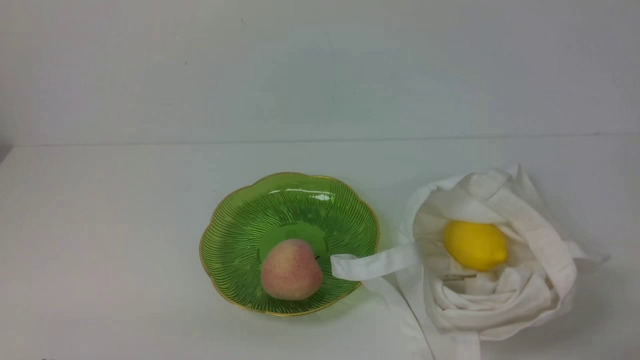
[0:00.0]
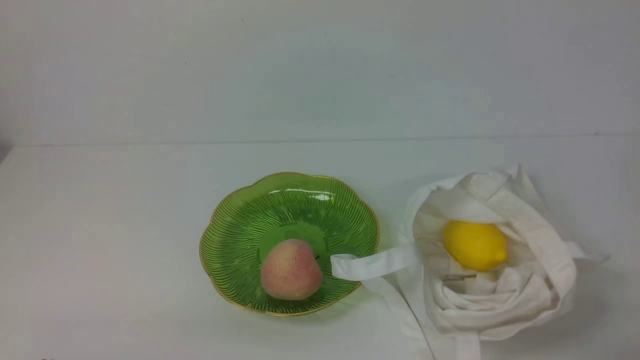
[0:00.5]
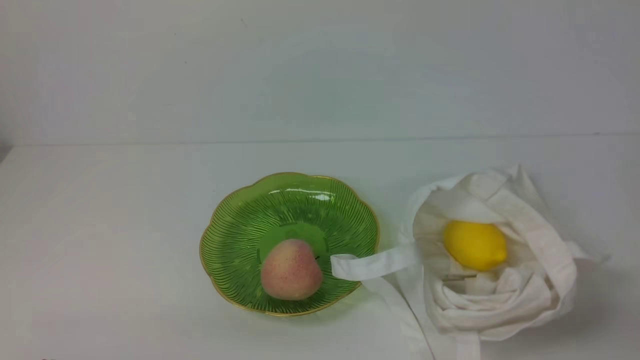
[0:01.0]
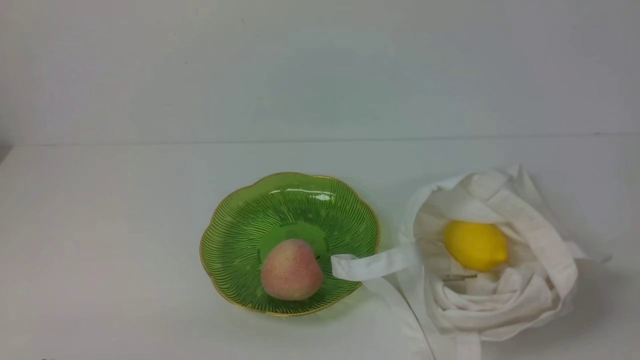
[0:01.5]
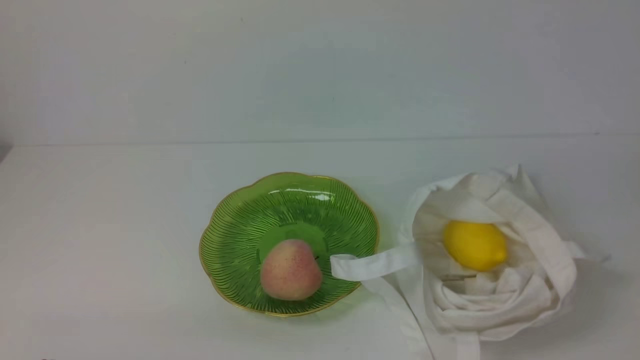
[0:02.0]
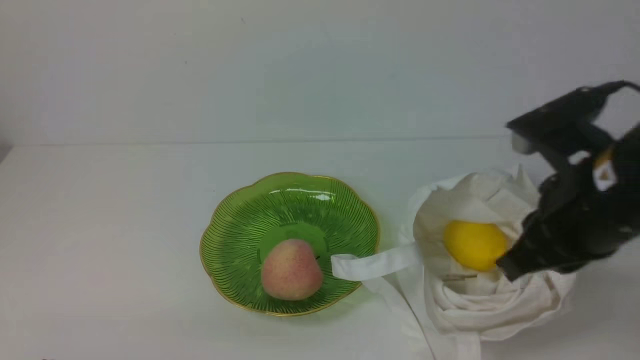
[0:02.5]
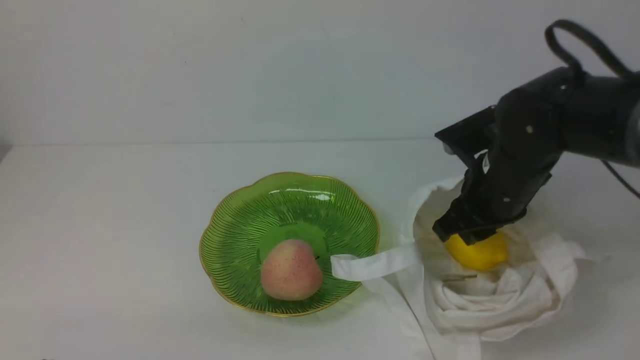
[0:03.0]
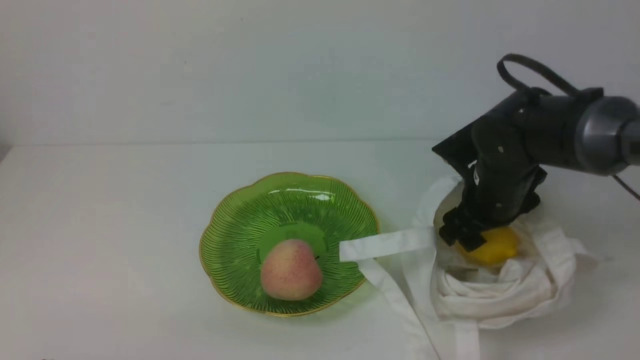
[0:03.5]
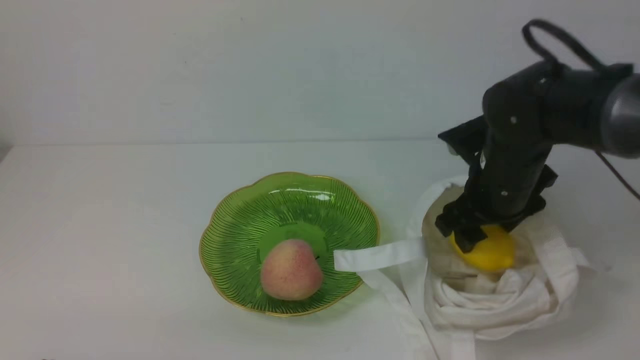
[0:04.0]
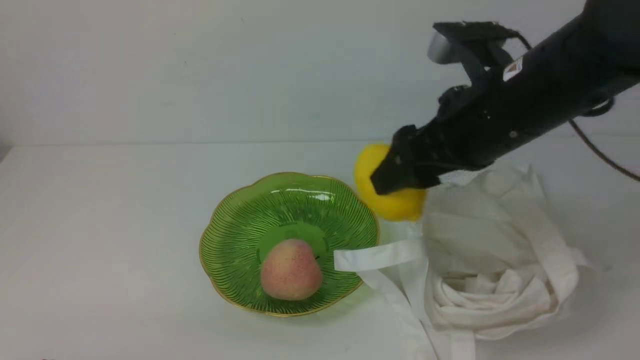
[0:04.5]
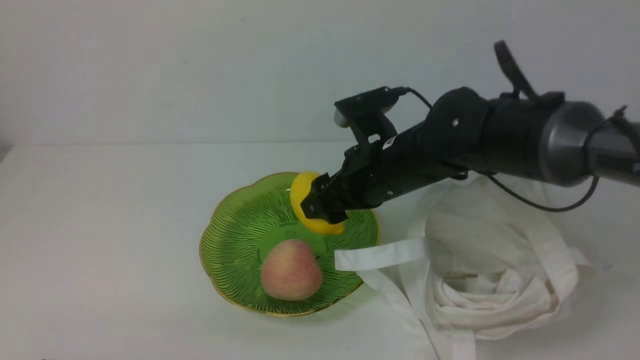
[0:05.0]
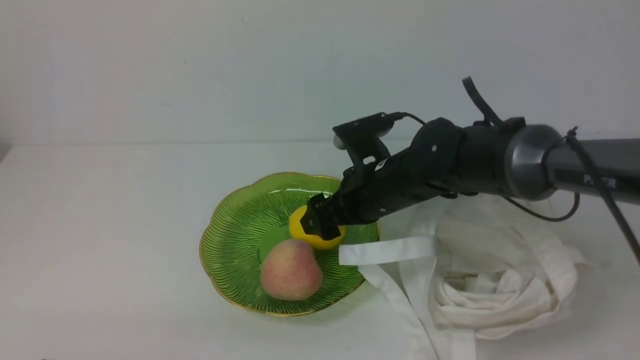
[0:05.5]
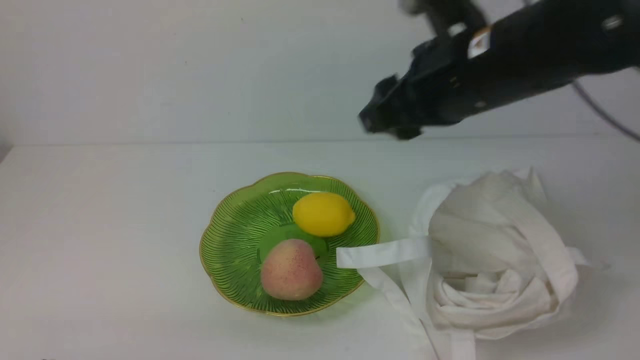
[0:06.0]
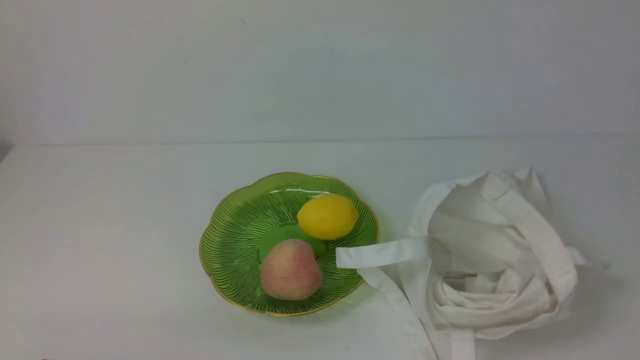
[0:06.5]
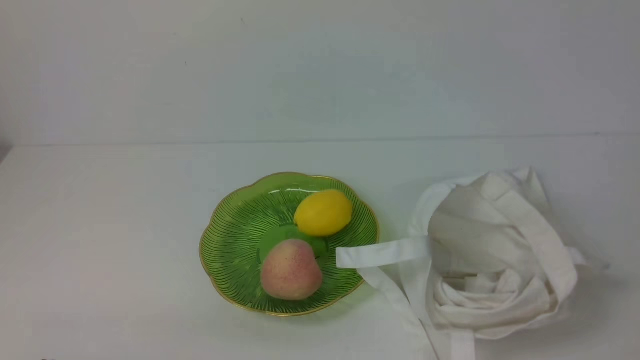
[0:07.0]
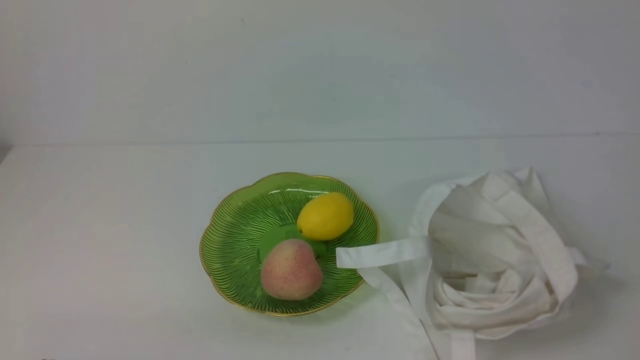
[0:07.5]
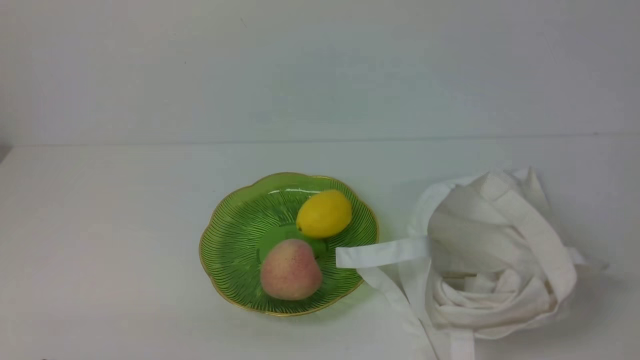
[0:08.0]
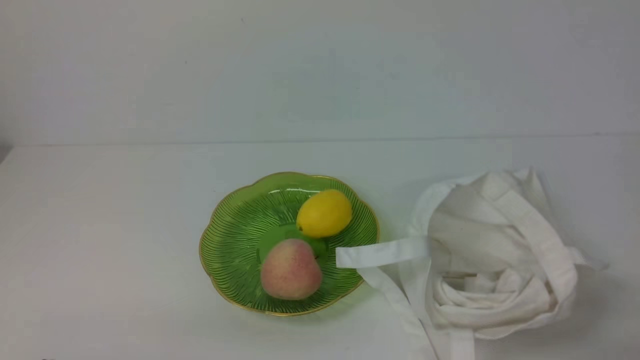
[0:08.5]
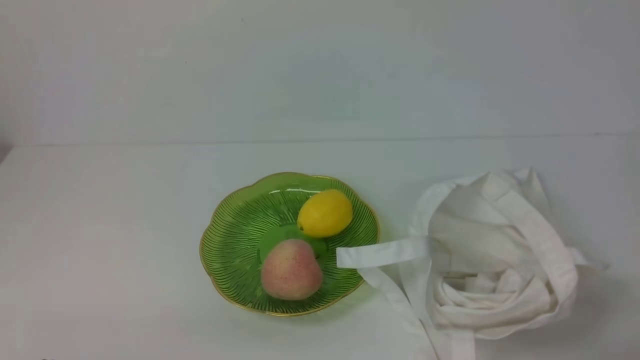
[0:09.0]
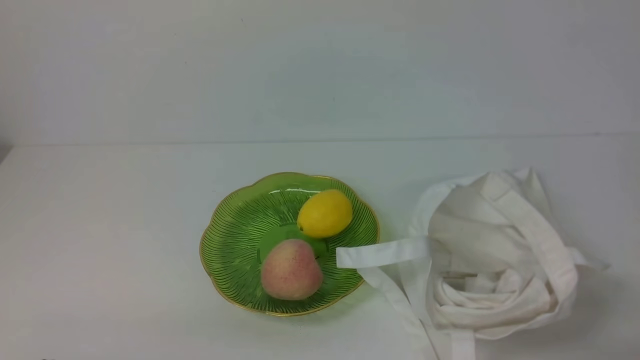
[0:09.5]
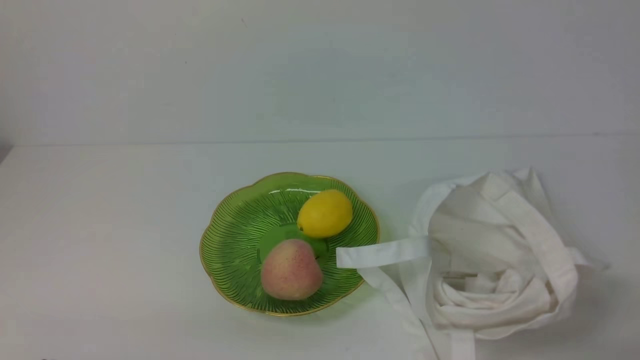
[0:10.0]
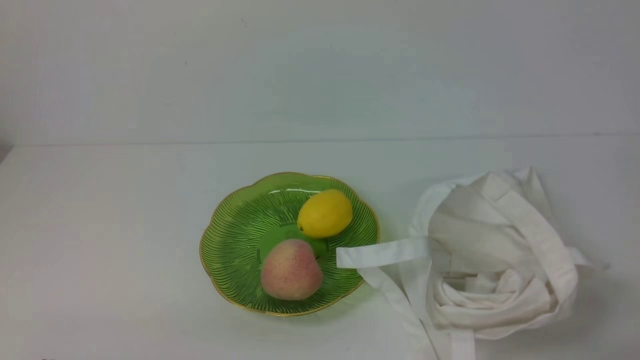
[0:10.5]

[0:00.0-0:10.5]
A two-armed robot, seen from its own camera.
Step, 0:00.0 to 0:04.0: use the right arm to grab a mango from the bag.
Step, 0:04.5 to 0:05.5: use the right arm to put the mango into the empty plate on the left.
0:02.0 to 0:04.0: The right gripper moves forward, downward and to the left, approximately 35 cm, and opens.
0:04.0 to 0:06.5: The right gripper moves up and down over about 25 cm, changing direction 2 times, and closes.
